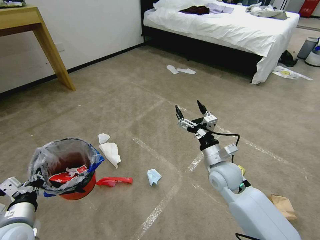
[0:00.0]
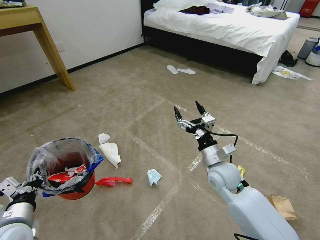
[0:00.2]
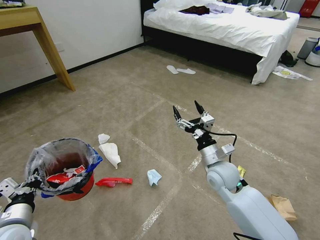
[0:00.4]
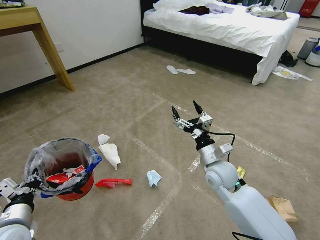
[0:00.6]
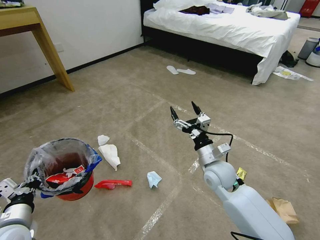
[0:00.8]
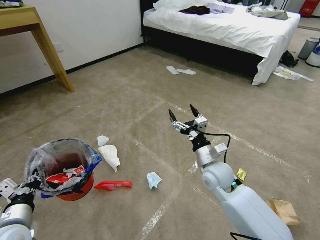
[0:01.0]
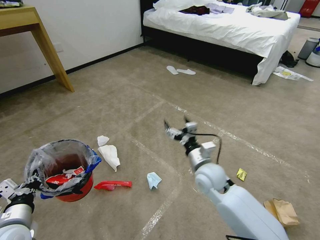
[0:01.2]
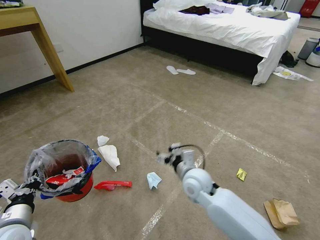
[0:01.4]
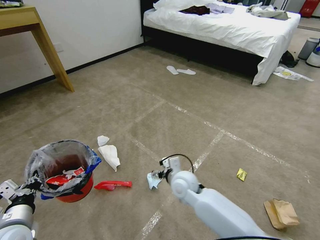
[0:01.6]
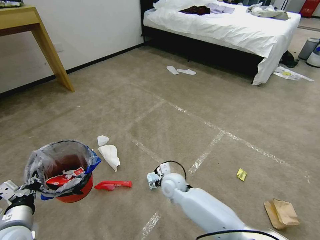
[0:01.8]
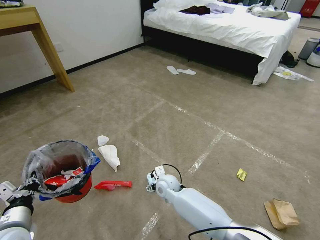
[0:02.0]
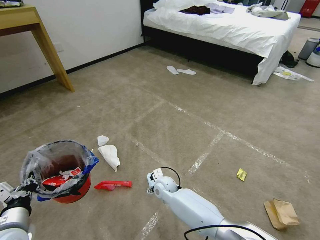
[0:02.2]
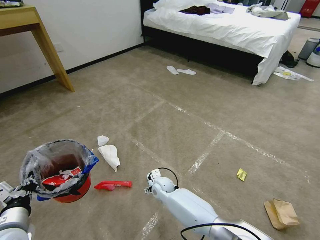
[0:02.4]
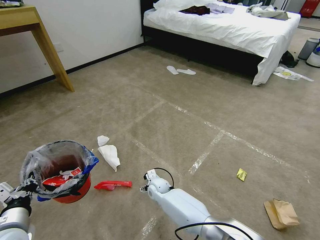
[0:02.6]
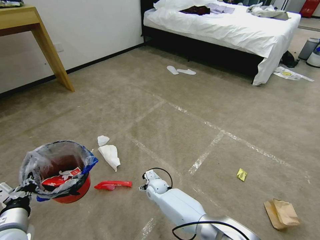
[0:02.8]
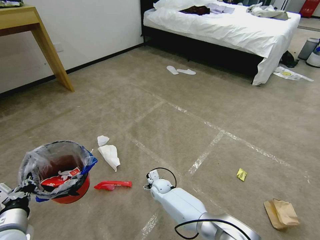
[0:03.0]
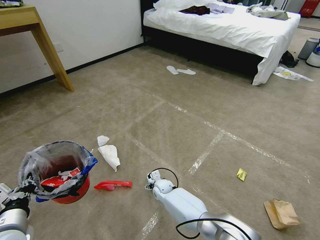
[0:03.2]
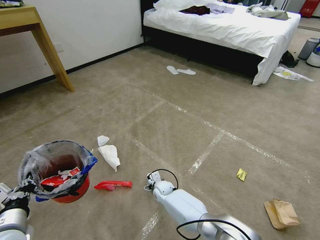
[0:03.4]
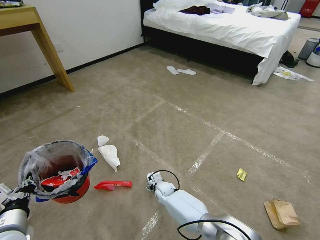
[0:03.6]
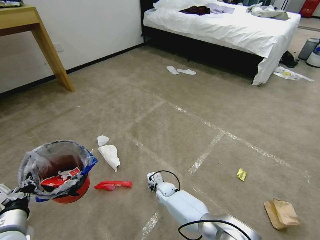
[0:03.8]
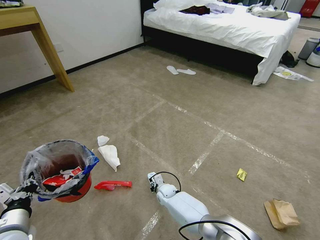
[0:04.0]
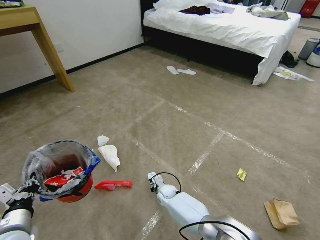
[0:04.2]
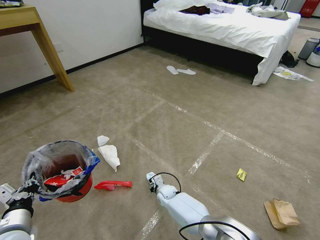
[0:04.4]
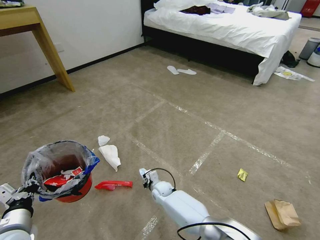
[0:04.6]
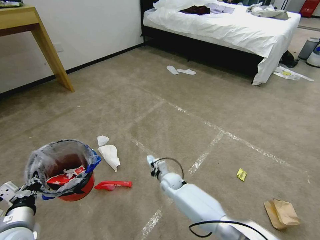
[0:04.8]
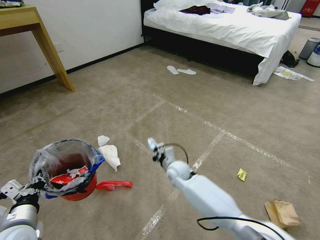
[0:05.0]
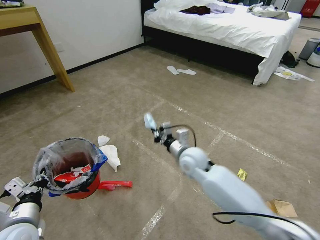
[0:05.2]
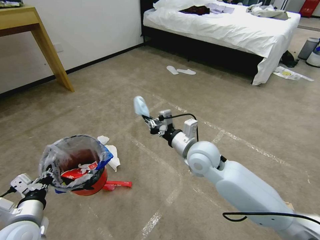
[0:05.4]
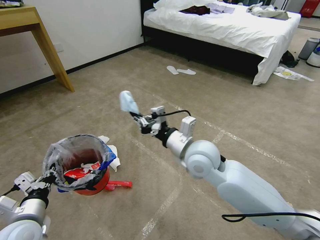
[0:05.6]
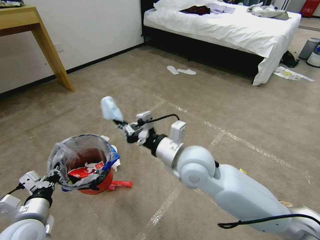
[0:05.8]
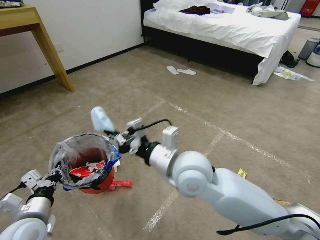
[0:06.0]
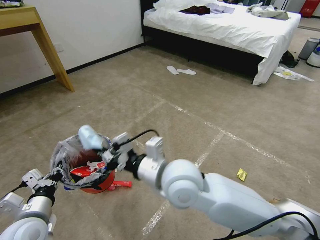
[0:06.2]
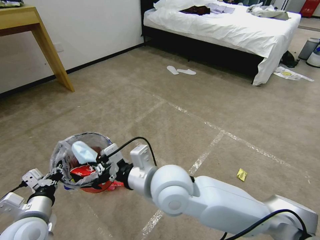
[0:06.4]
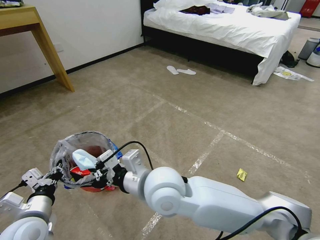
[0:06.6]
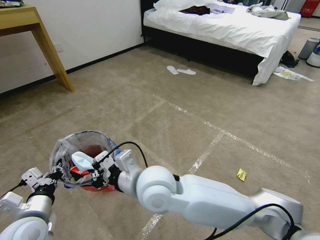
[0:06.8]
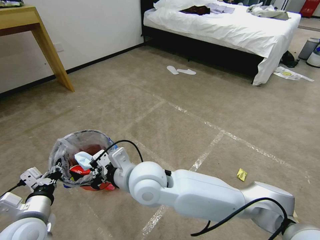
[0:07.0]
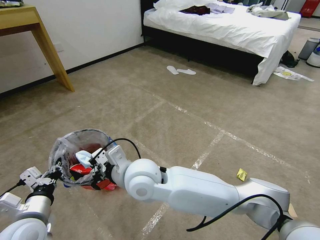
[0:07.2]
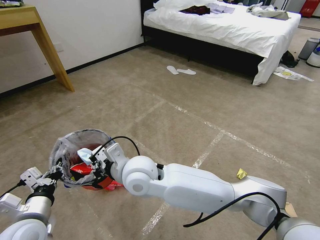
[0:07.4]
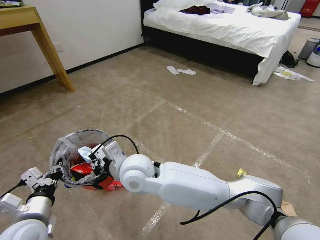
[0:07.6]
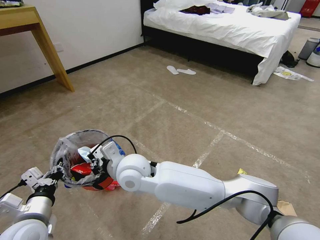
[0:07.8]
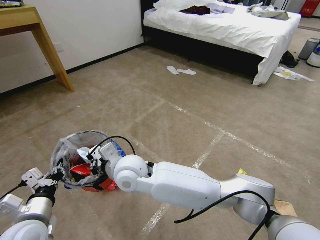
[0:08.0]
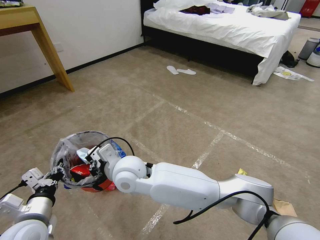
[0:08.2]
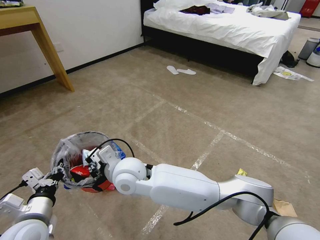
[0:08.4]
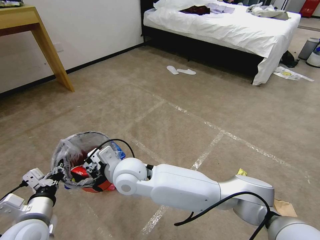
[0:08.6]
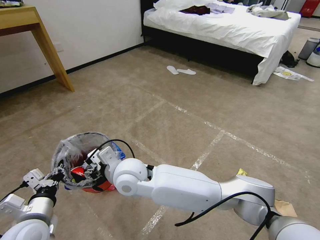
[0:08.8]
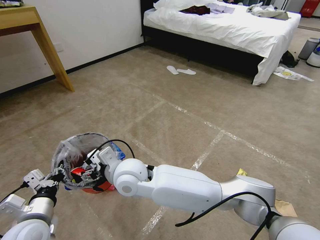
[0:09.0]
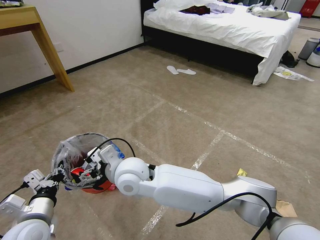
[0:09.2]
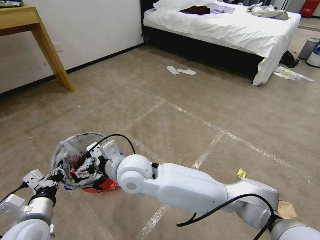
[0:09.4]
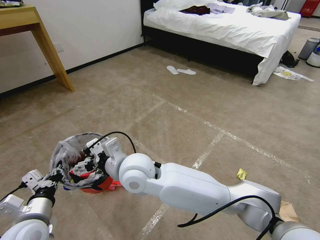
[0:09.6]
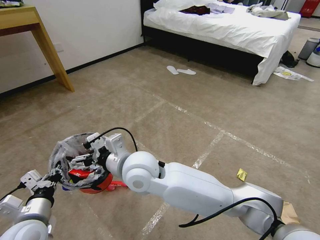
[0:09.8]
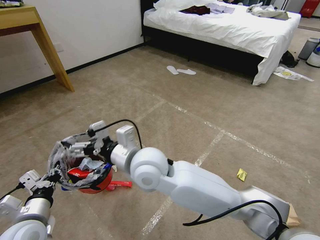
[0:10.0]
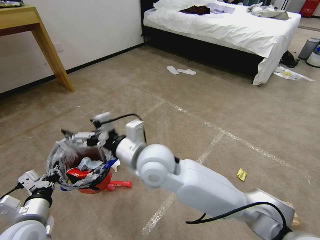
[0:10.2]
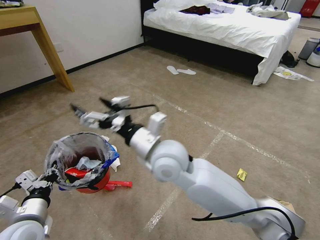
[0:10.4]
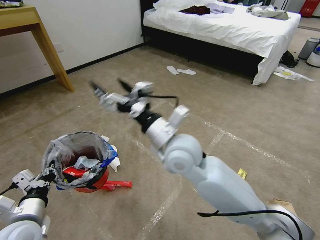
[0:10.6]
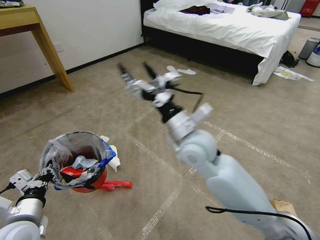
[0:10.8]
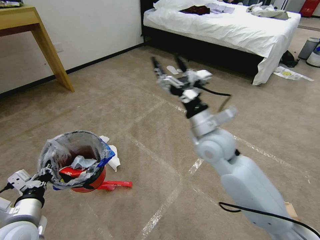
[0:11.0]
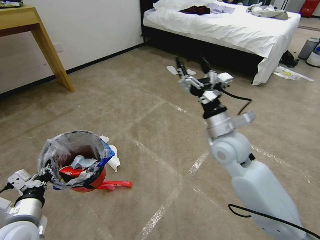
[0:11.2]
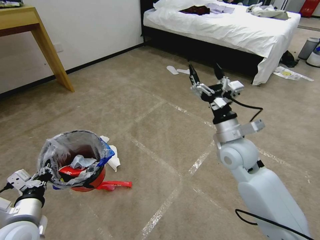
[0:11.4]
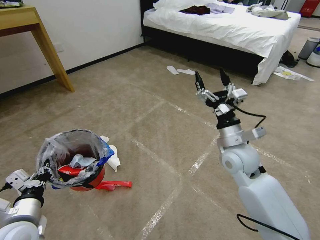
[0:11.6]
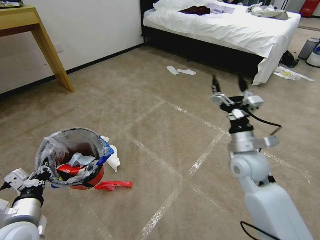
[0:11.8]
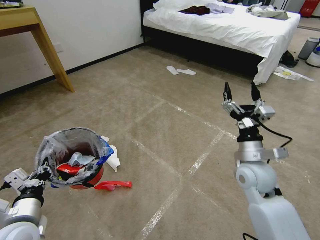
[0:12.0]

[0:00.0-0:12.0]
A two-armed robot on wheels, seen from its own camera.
Task of the whole recording: Pick up the trash bin and place the garbage on the floor into it.
0:00.0 to 0:01.6: The right gripper travels to the left and downward by approximately 15 cm.
0:01.6 to 0:03.0: The right gripper heads downward and to the left, covering roughly 20 cm.
0:03.0 to 0:04.4: The right gripper shifts by some 5 cm, and closes.
0:04.4 to 0:06.0: The right gripper shifts approximately 40 cm upward.
0:06.0 to 0:07.6: The right gripper is displaced to the left by some 15 cm.
0:07.6 to 0:09.0: The right gripper opens.
0:09.0 to 0:10.4: The right gripper travels to the right and upward by roughly 15 cm.
0:10.4 to 0:12.0: The right gripper shifts about 25 cm to the right.

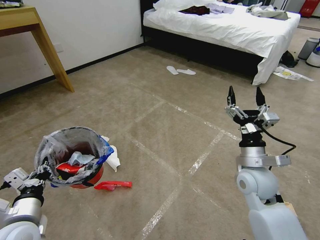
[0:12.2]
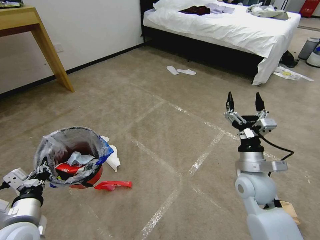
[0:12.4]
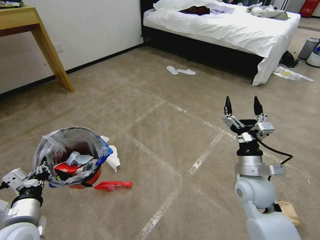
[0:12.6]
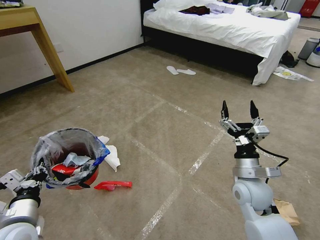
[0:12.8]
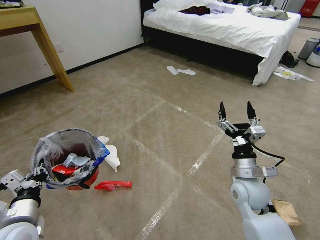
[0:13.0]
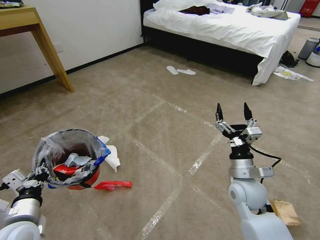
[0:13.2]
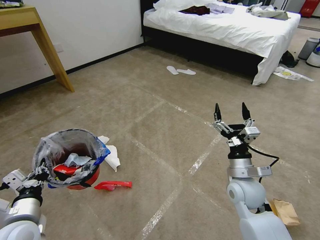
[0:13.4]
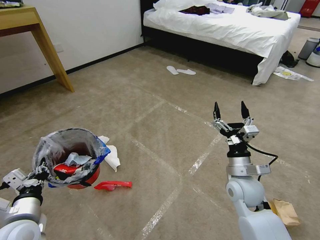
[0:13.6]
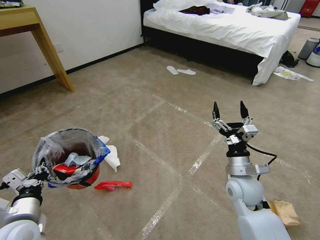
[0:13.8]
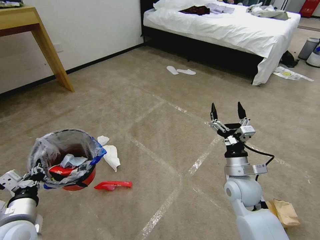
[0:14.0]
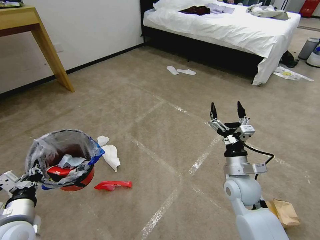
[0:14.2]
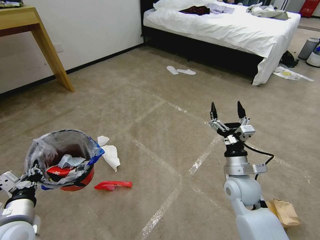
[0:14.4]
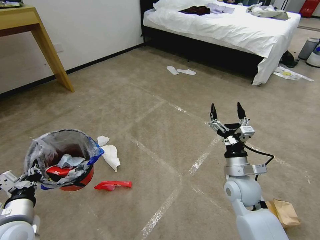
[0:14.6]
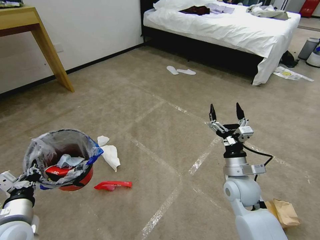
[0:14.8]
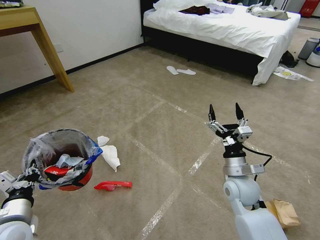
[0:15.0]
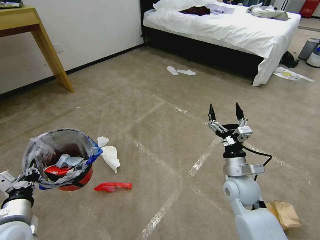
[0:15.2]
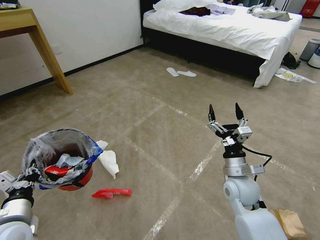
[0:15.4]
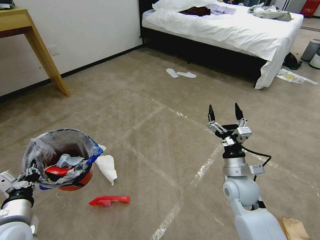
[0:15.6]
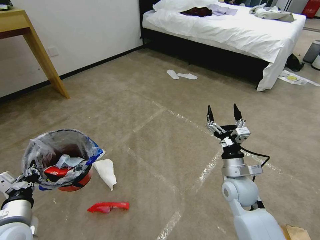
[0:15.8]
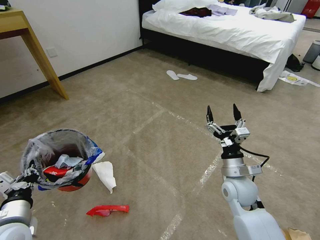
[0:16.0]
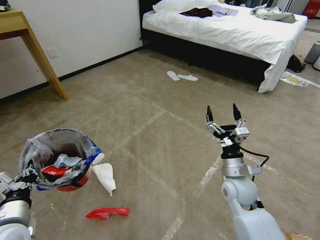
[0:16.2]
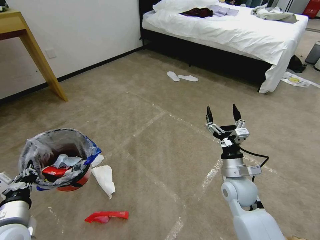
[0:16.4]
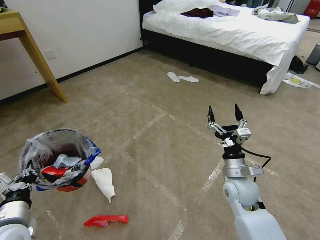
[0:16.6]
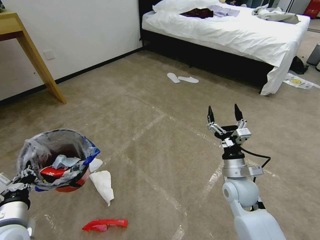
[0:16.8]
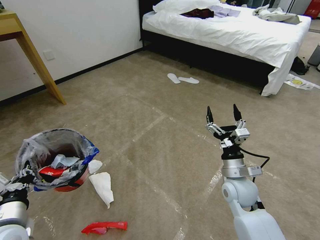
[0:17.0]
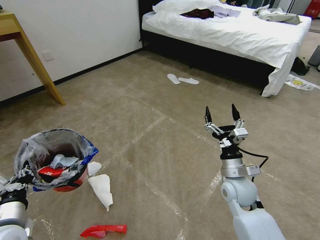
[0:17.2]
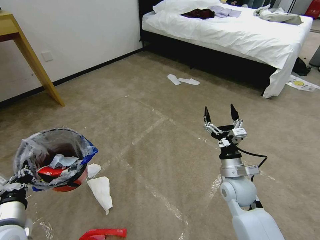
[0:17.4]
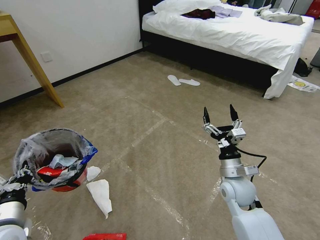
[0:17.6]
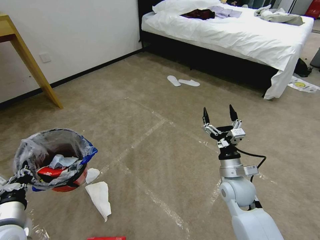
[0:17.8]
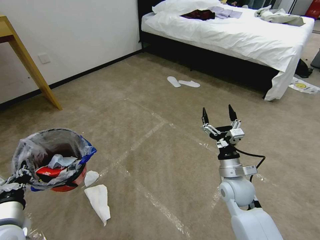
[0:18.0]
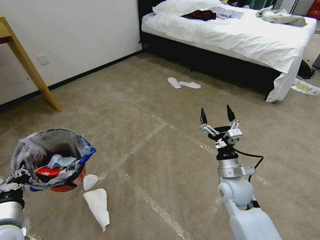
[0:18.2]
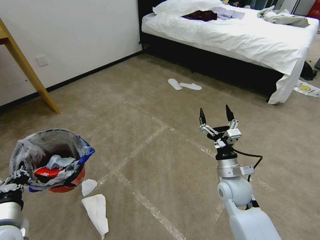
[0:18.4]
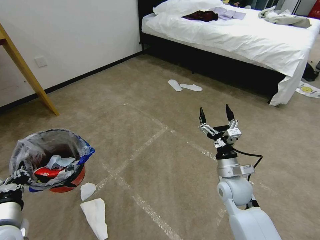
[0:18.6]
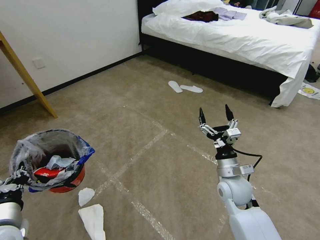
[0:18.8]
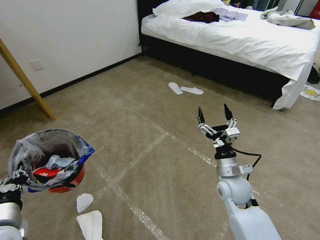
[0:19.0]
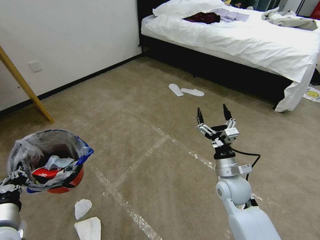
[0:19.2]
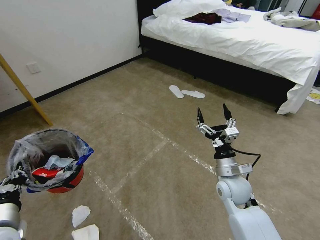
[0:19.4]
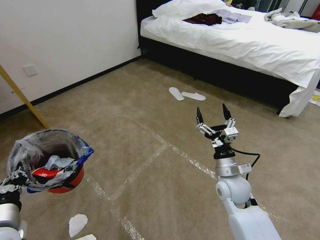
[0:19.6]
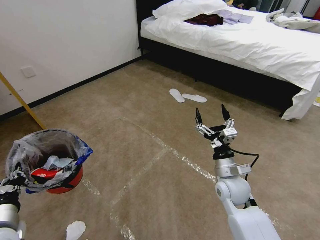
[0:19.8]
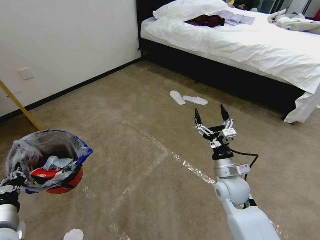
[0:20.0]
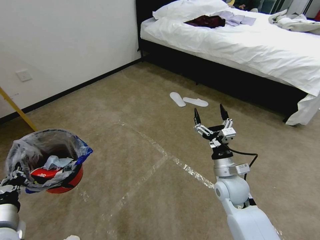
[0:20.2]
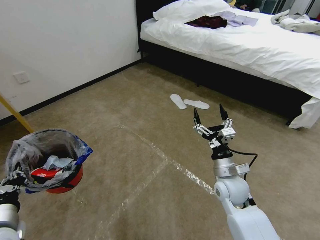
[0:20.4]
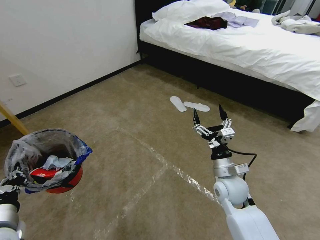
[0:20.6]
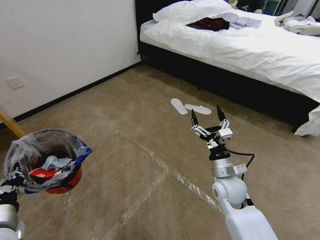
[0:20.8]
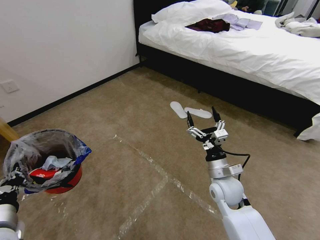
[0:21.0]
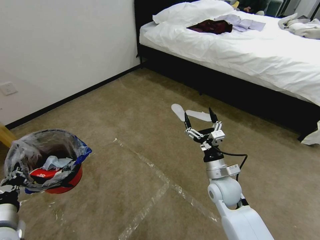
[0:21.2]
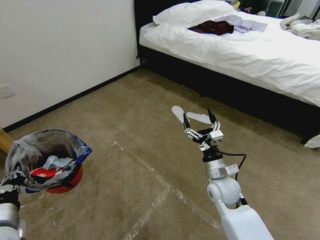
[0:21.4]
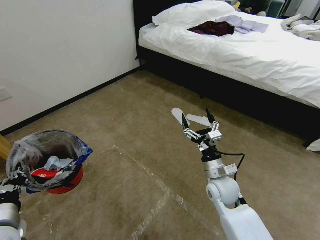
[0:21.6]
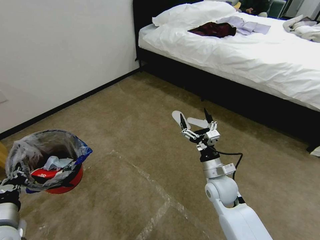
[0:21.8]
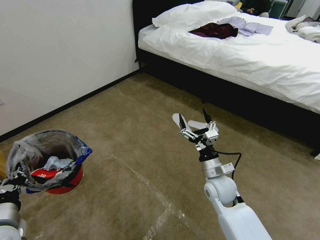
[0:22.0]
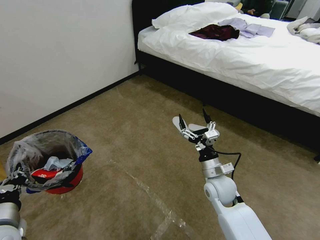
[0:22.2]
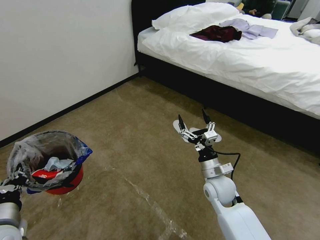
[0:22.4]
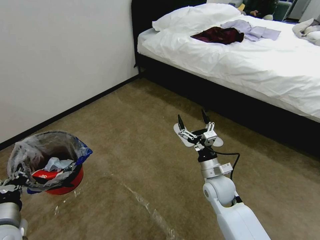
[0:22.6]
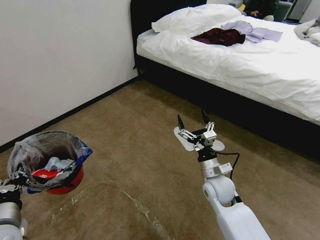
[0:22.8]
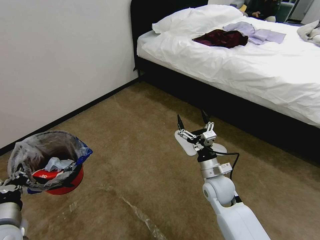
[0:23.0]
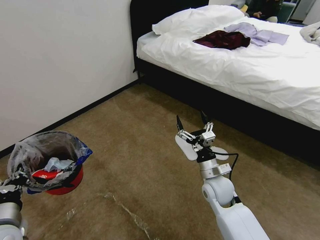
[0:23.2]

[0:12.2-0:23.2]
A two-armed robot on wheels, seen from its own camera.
Task of the whole recording: Pick up the trash bin and place the garbage on the floor into it.
0:12.2 to 0:15.4: The grippers stay close to where they were, moving slightly.
